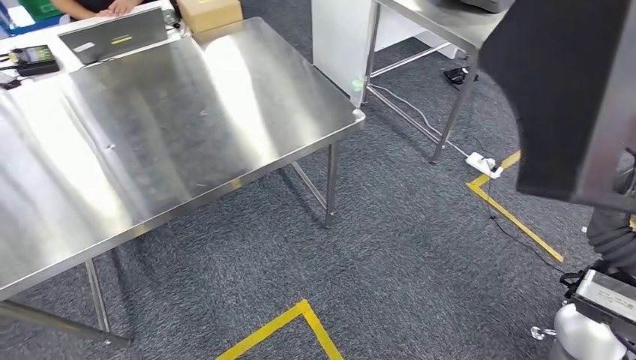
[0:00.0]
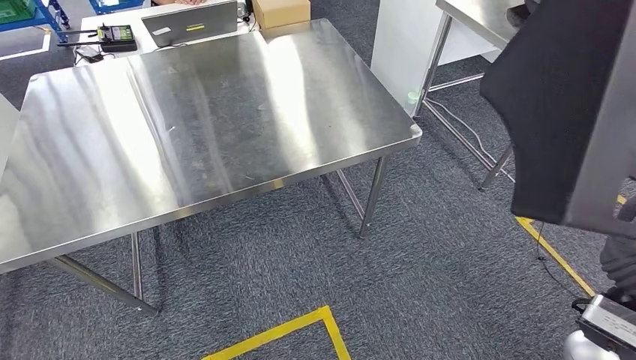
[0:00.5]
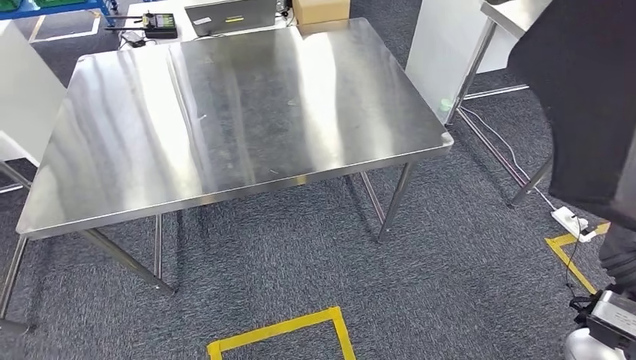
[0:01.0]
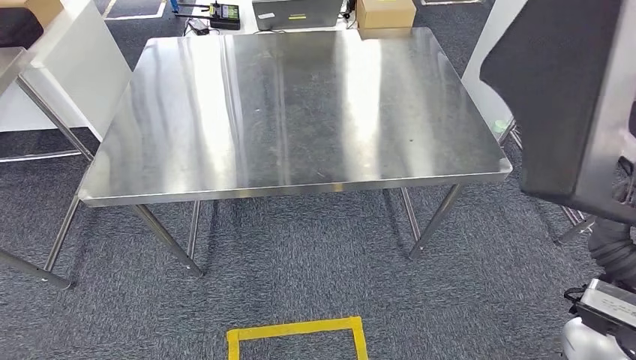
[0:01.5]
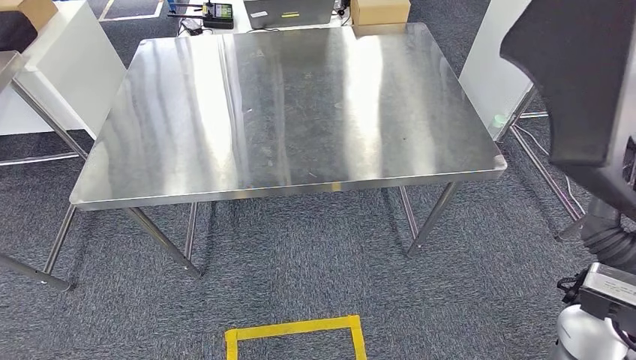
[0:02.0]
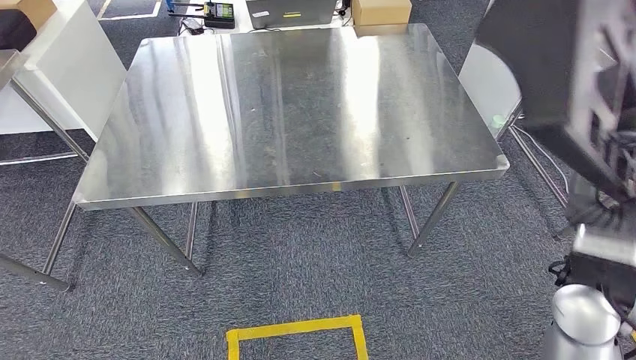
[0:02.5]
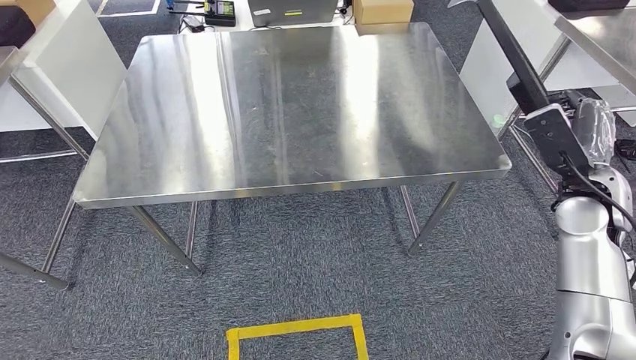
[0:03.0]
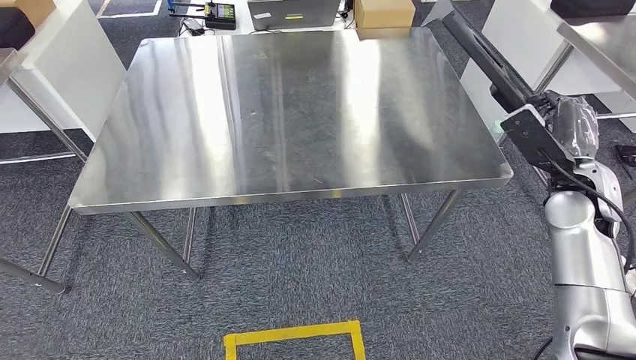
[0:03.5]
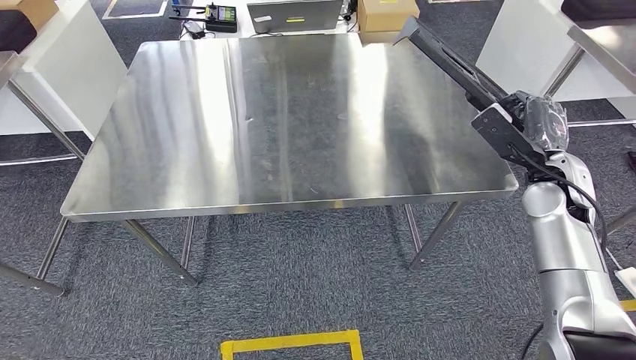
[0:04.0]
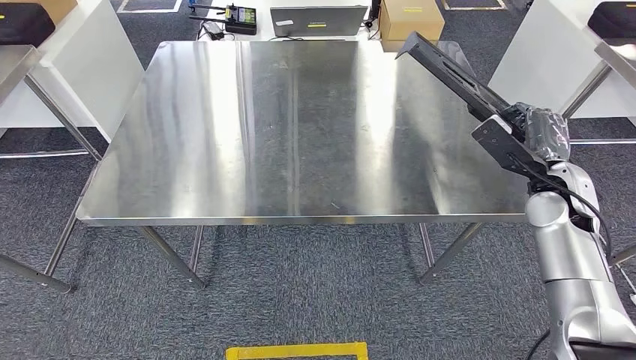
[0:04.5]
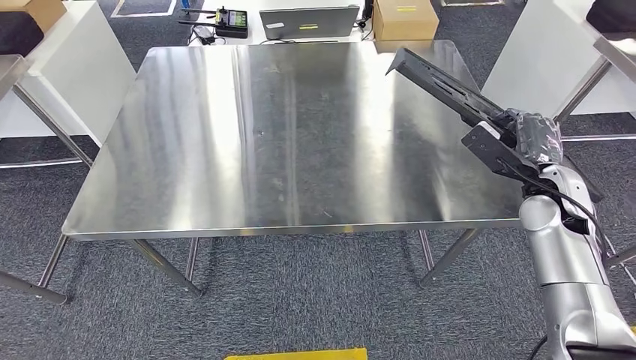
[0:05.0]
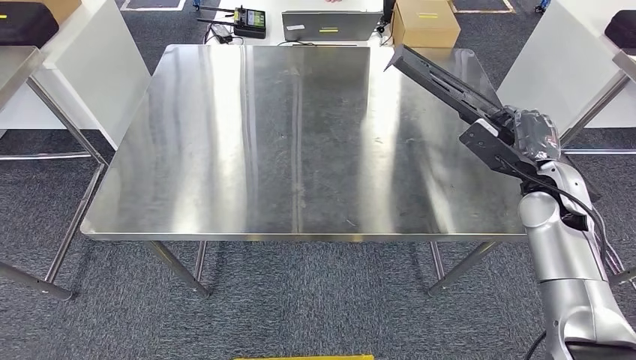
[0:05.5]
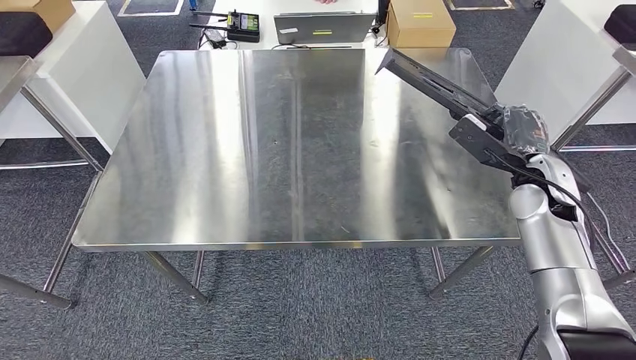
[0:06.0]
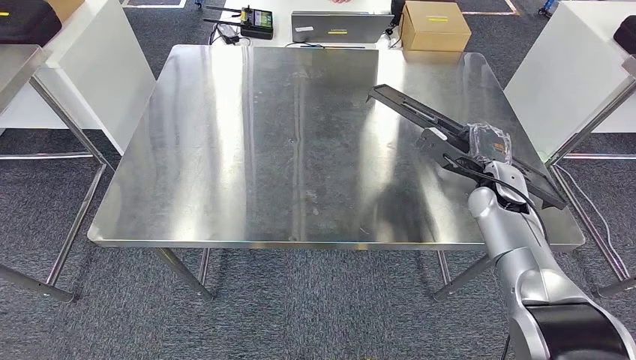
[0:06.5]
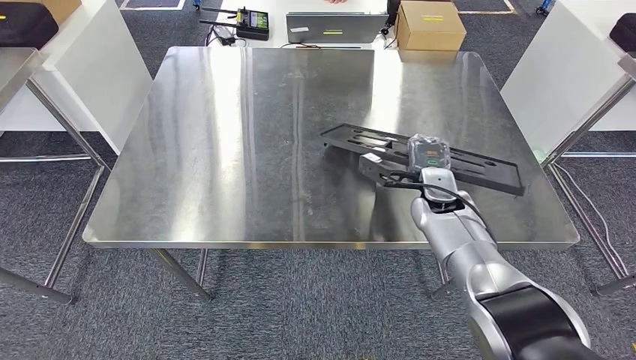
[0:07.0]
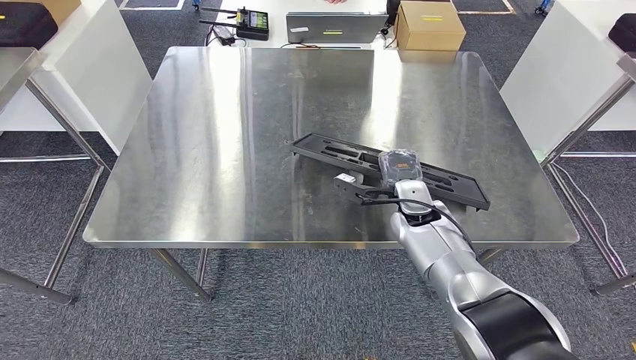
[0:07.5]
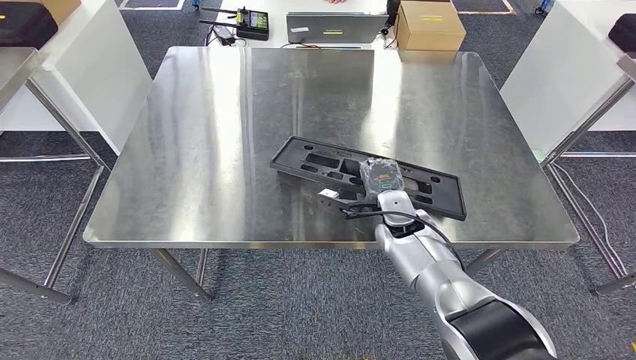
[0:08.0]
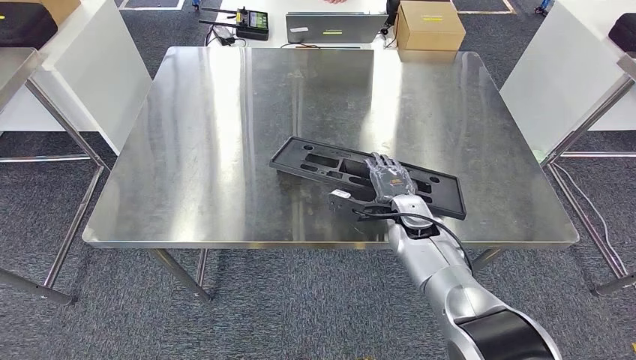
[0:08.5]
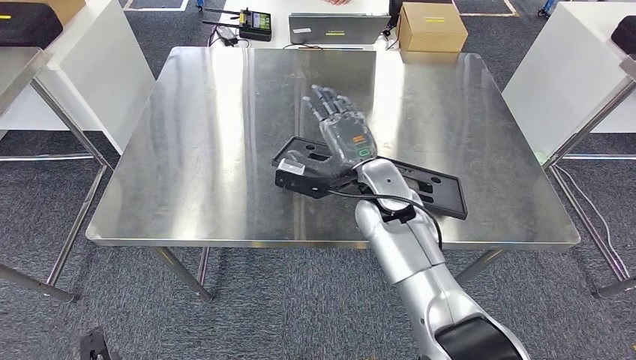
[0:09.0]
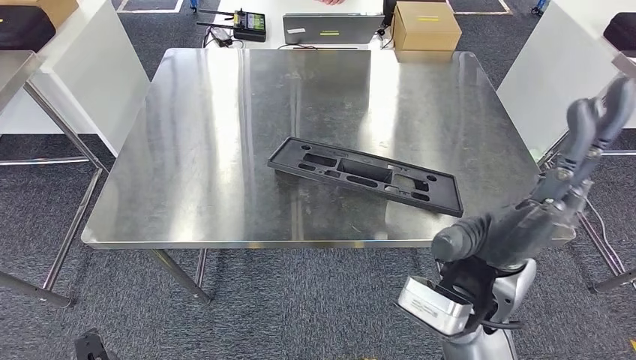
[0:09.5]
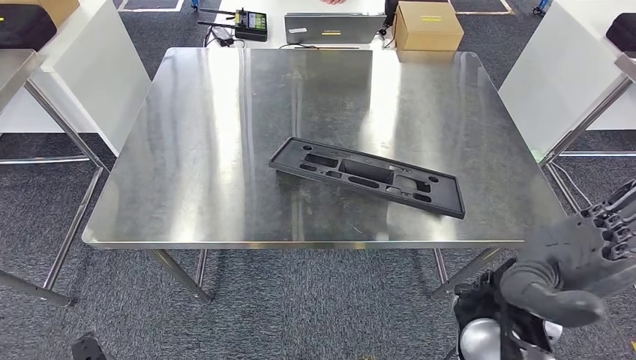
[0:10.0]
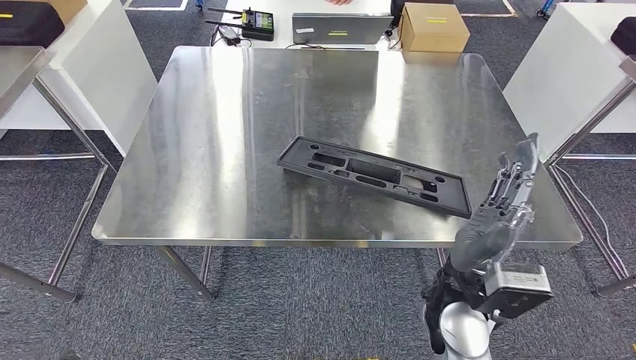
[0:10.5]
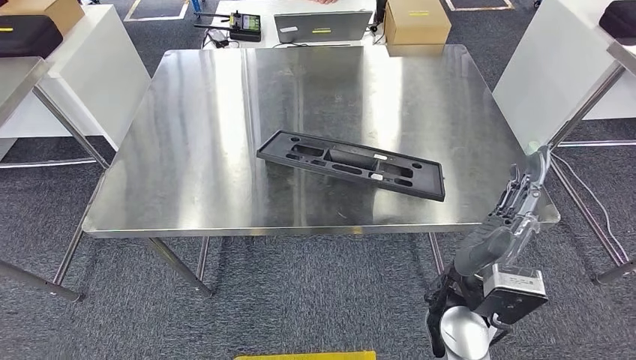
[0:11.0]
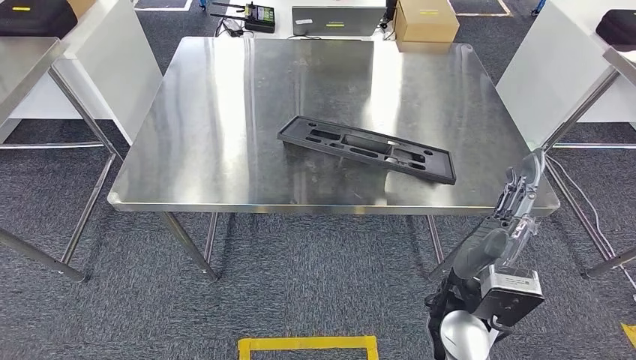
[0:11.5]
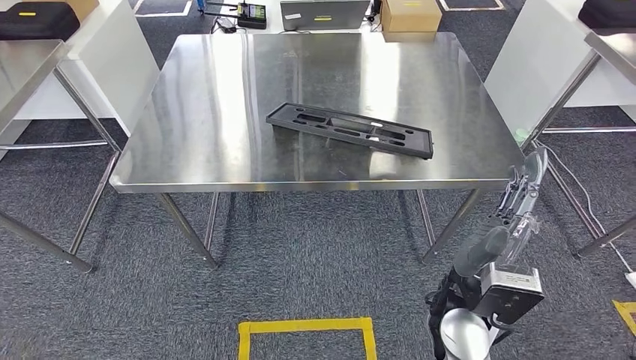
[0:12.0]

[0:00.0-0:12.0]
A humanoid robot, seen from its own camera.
0:08.0 to 0:10.0: The left hand moves forward, roughly 15 cm; the right hand travels upward and backward by about 20 cm.

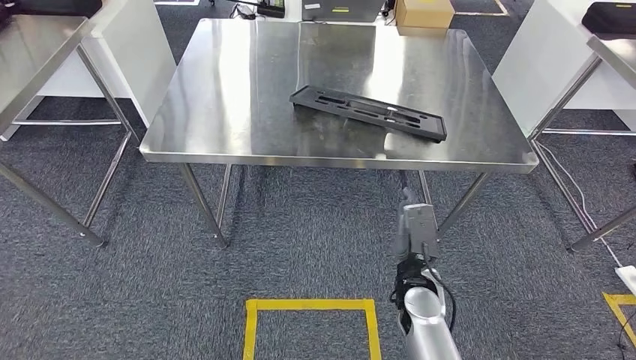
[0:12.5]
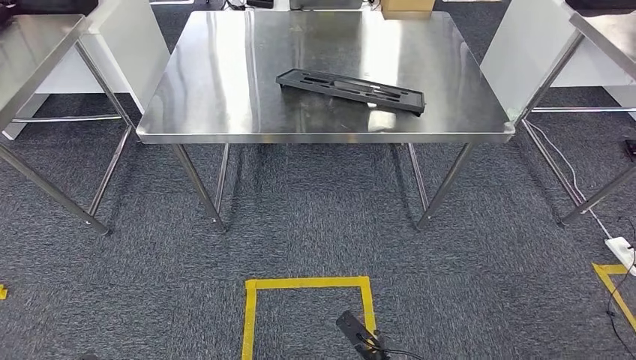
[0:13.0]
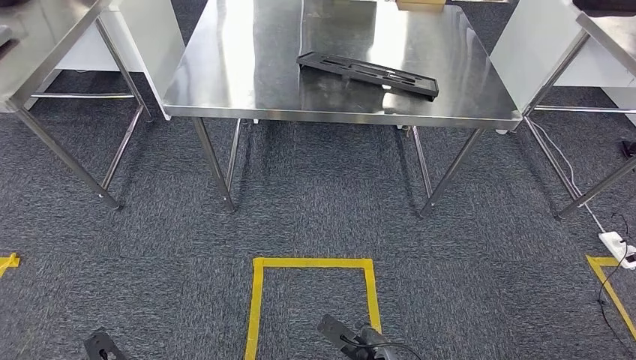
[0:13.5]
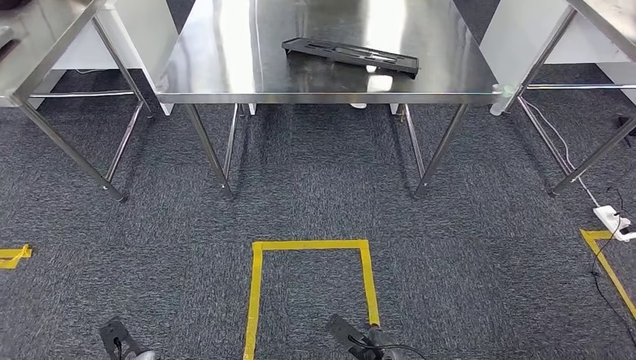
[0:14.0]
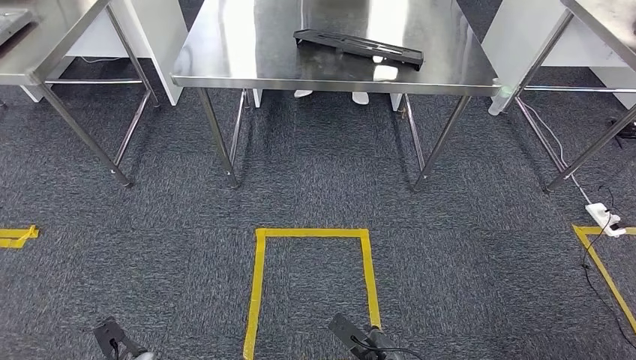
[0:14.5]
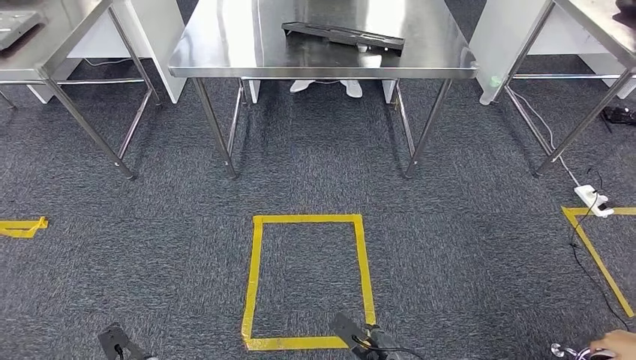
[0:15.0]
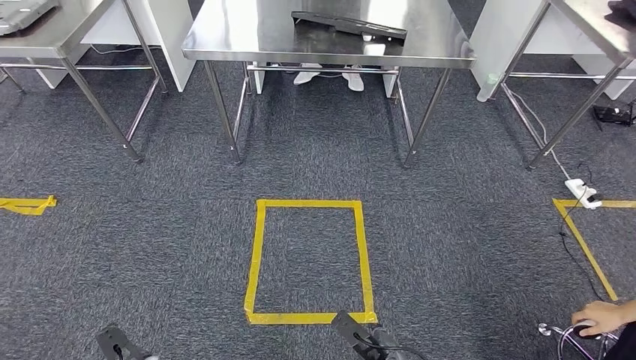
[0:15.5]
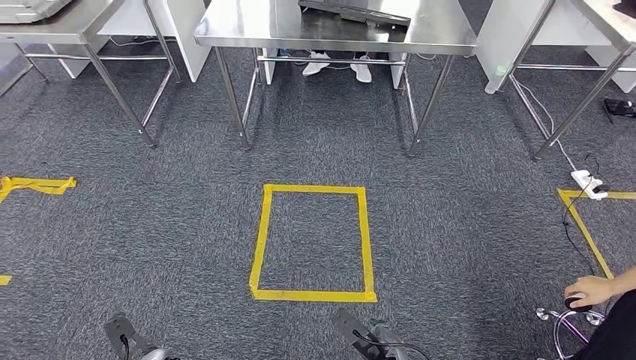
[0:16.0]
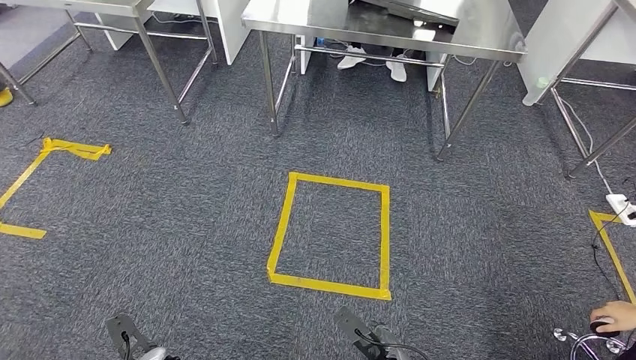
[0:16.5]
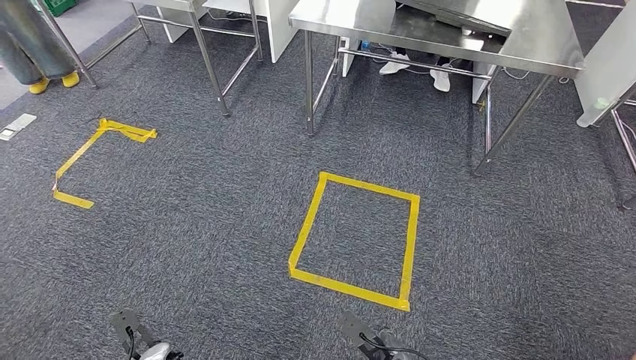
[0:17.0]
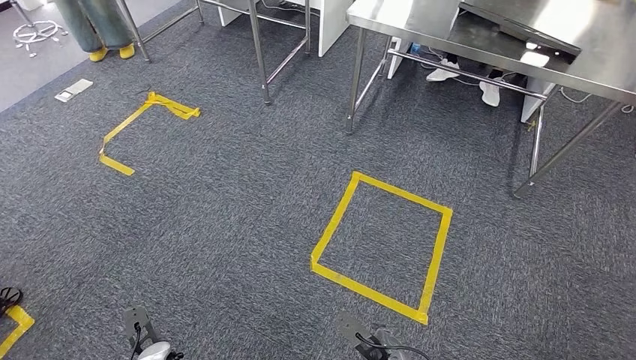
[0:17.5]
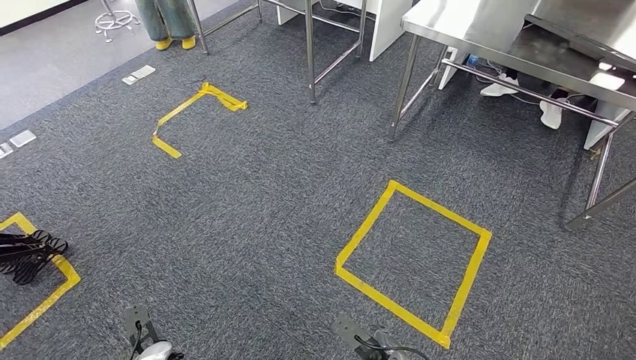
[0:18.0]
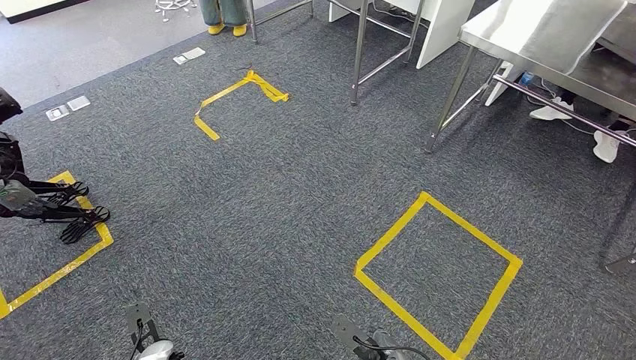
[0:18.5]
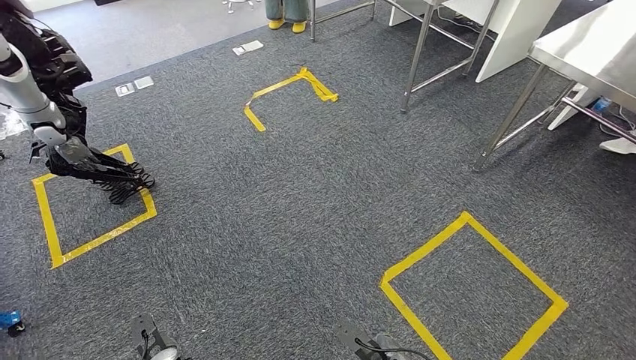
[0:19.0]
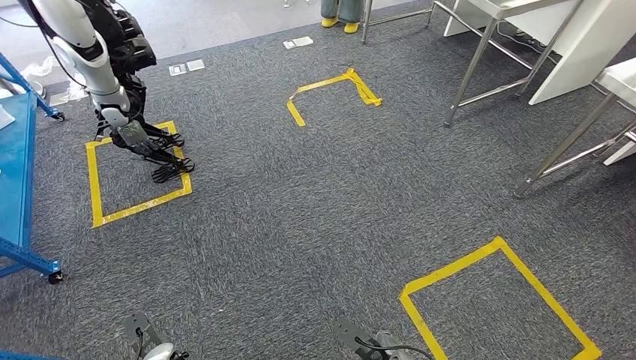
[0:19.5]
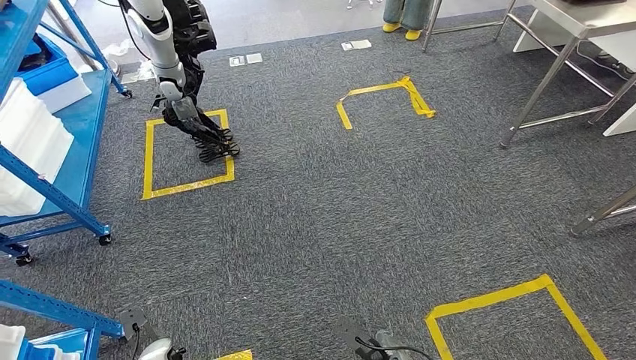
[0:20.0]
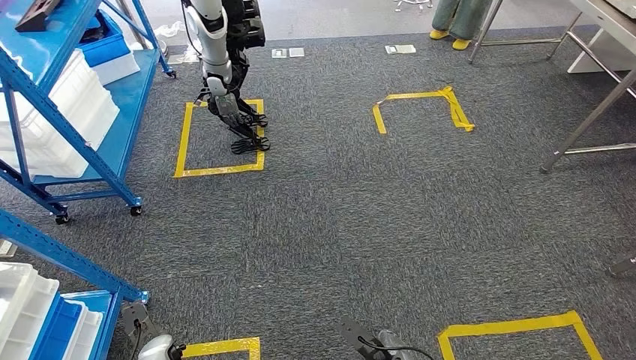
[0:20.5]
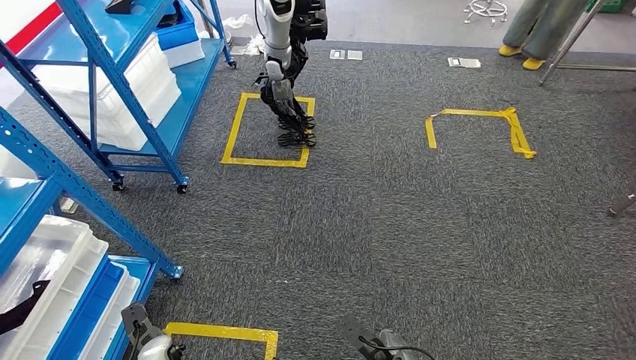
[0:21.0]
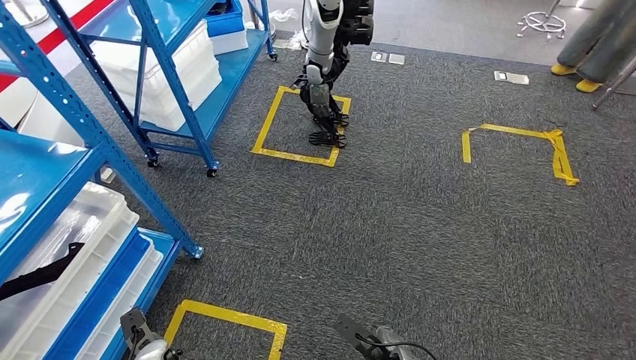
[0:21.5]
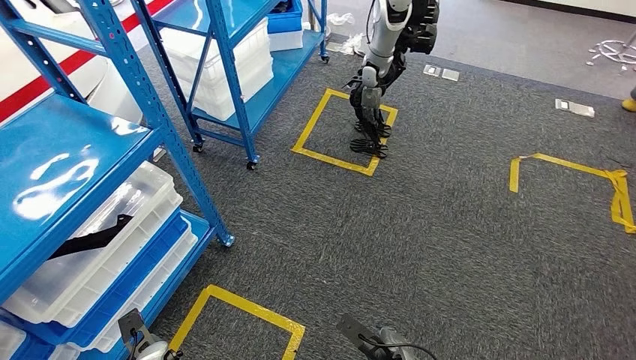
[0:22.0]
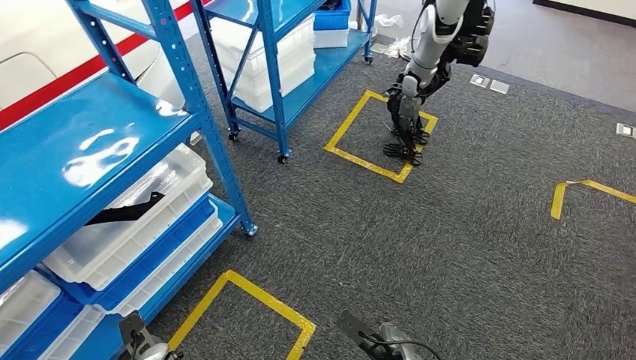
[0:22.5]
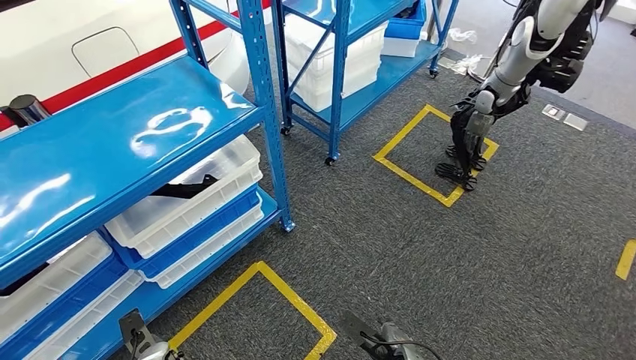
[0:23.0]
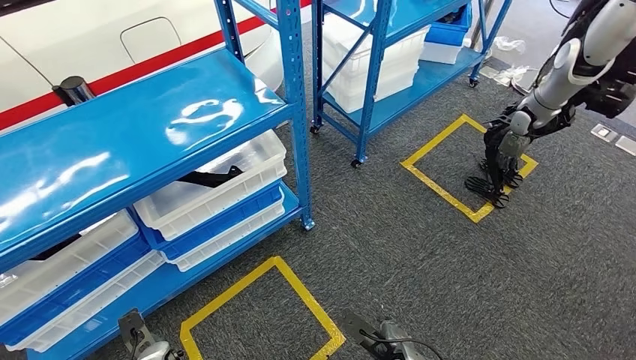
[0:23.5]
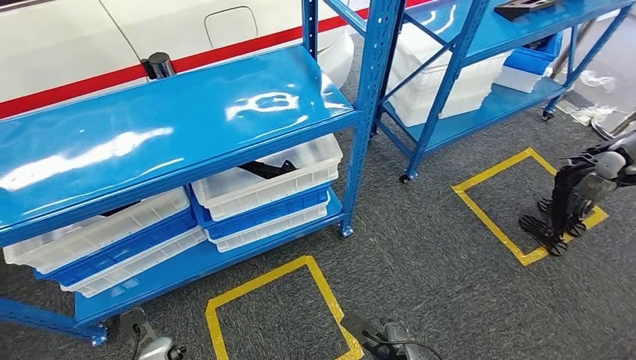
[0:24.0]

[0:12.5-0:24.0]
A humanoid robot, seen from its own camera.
Step, 0:12.5 to 0:15.5: Insert the large material into the corresponding slot on the workbench.
